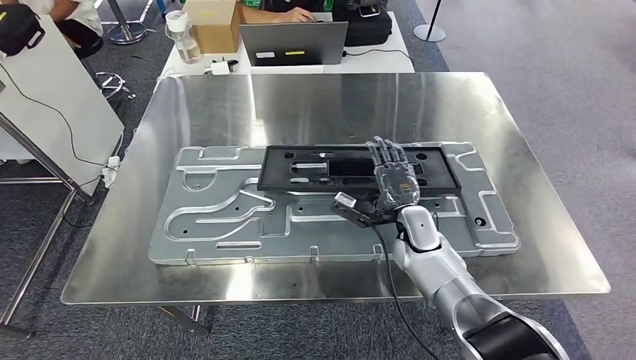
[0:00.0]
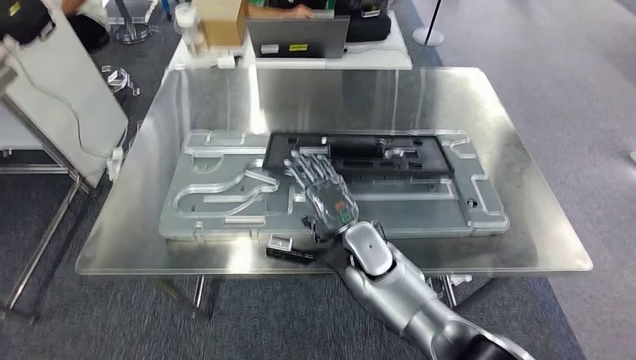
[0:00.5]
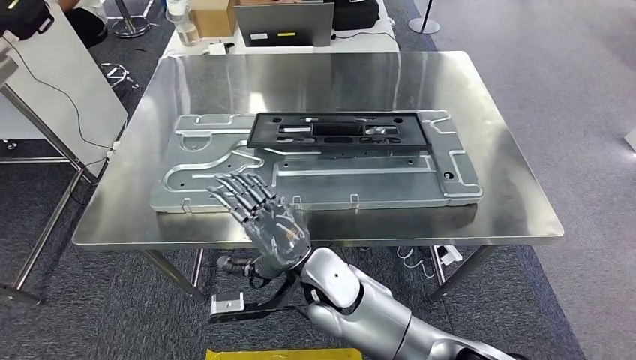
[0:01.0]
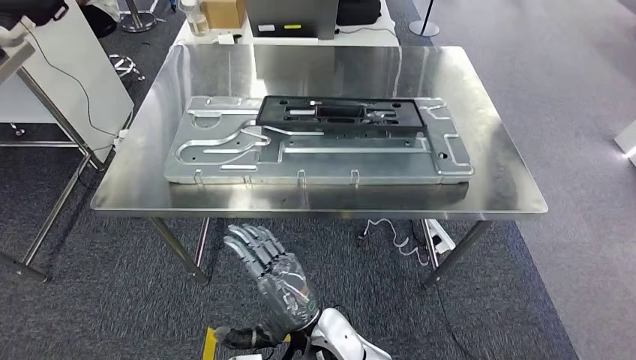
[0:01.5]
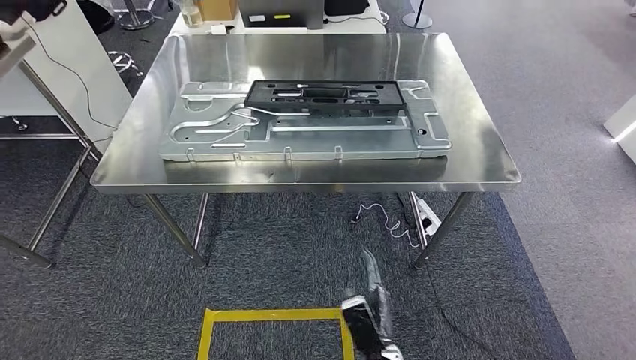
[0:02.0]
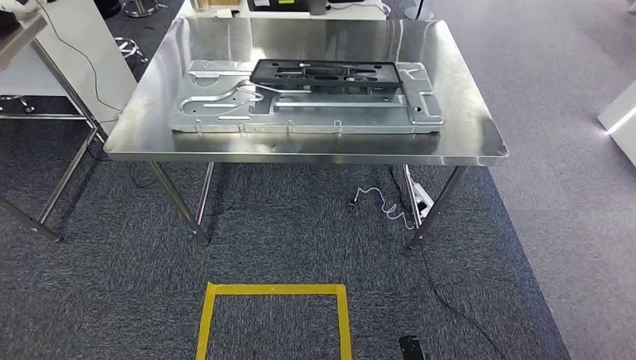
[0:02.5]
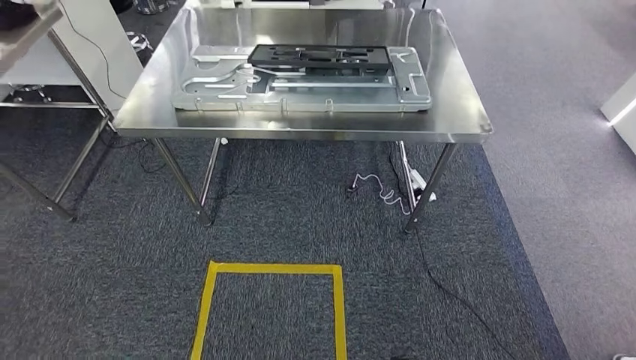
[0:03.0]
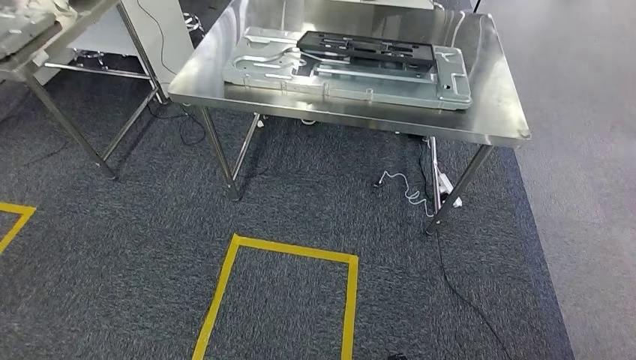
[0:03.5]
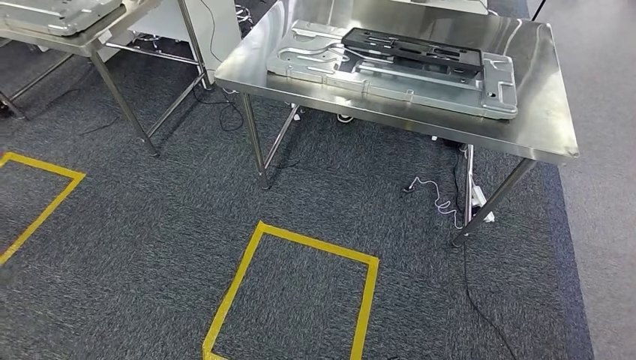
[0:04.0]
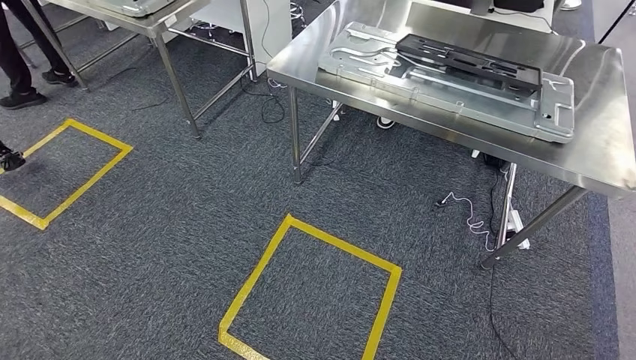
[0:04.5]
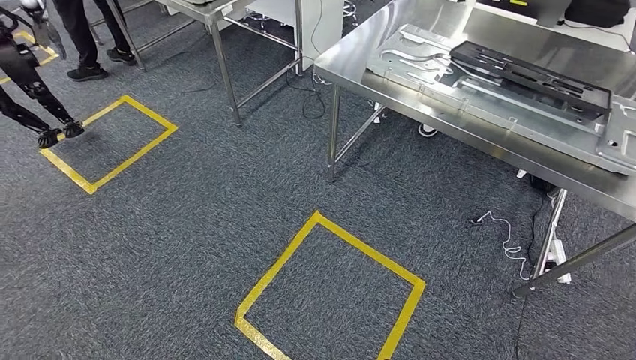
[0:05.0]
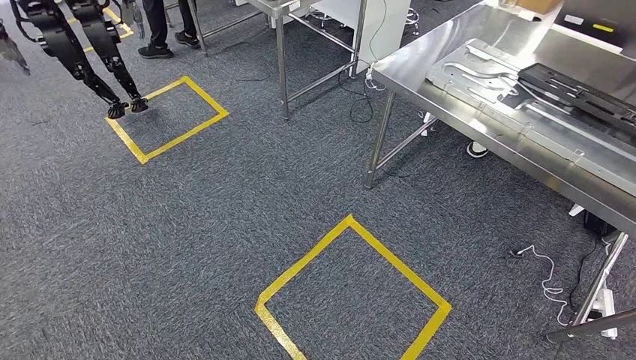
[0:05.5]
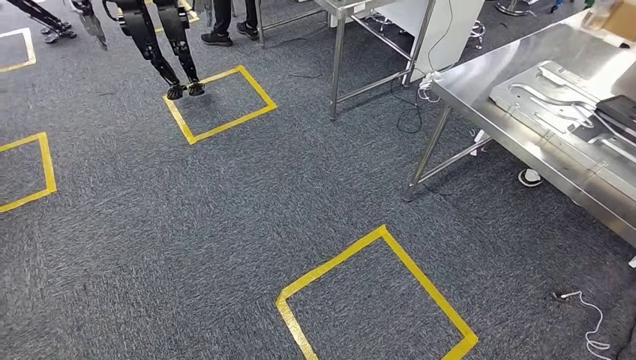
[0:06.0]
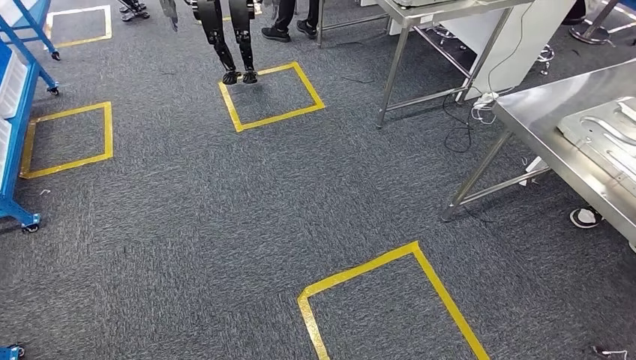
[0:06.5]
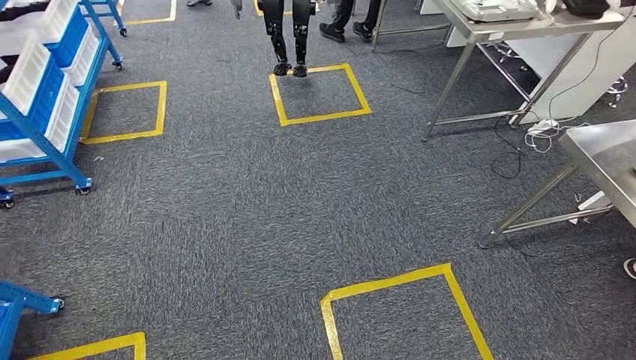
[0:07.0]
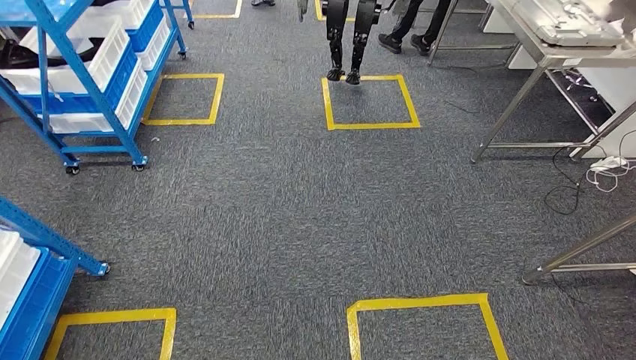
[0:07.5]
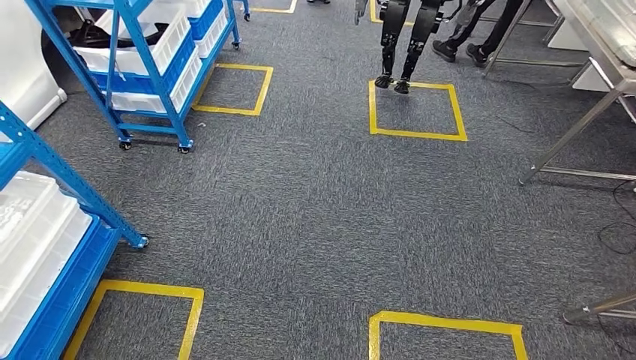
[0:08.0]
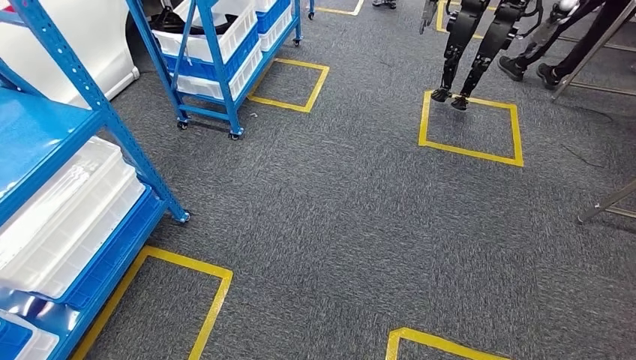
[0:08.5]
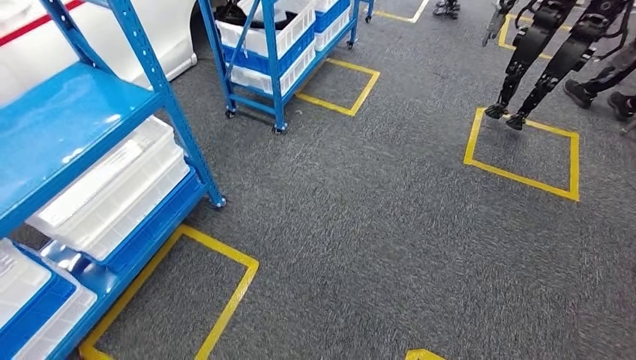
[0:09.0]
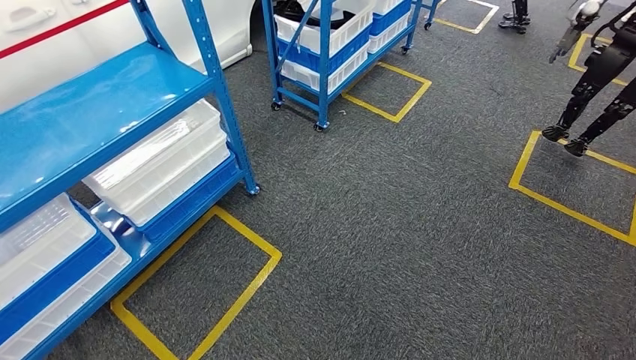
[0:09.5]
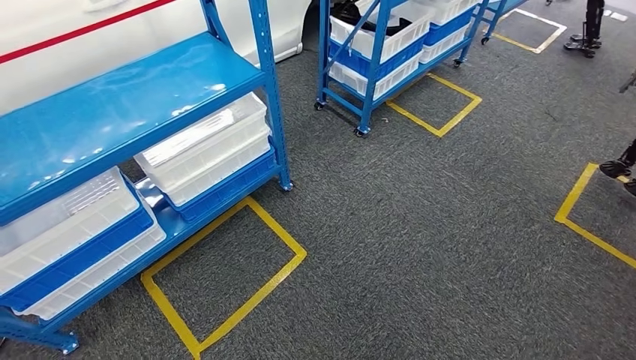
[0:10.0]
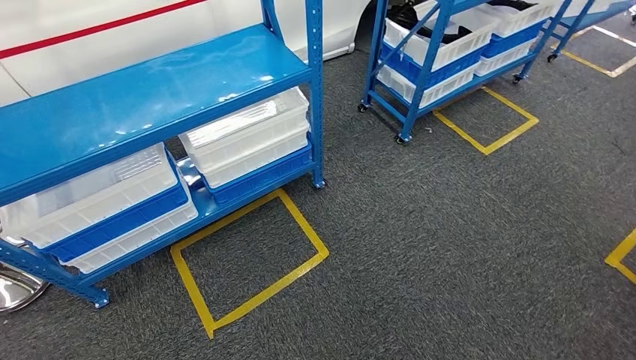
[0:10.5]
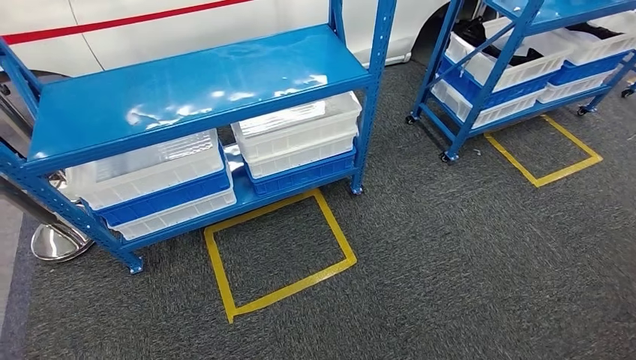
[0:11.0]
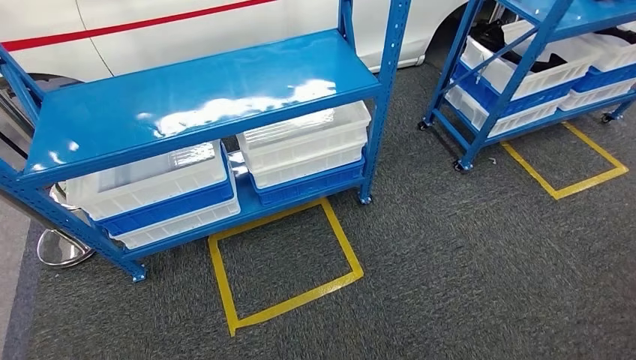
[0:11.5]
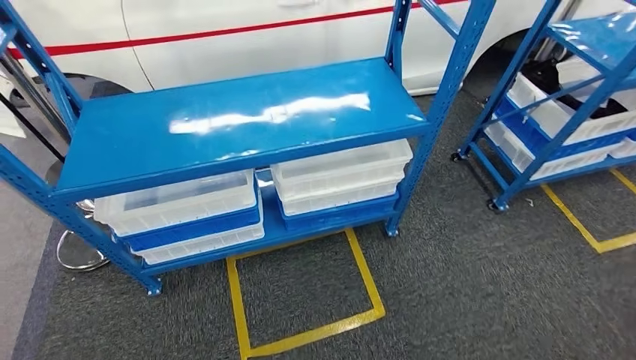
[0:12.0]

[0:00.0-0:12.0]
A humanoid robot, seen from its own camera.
Step, 0:00.0 to 0:03.0: Insert the large material into the corresponding slot on the workbench.

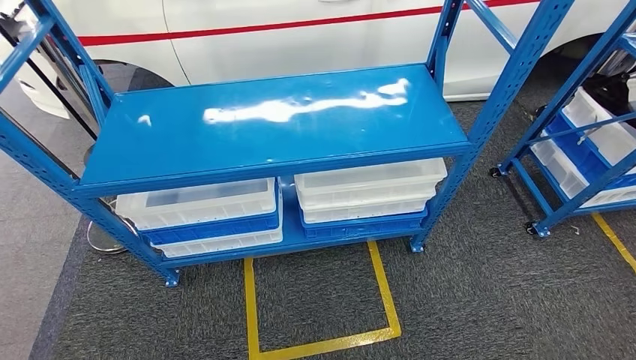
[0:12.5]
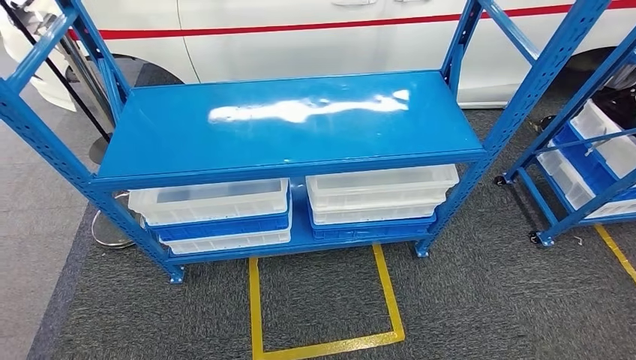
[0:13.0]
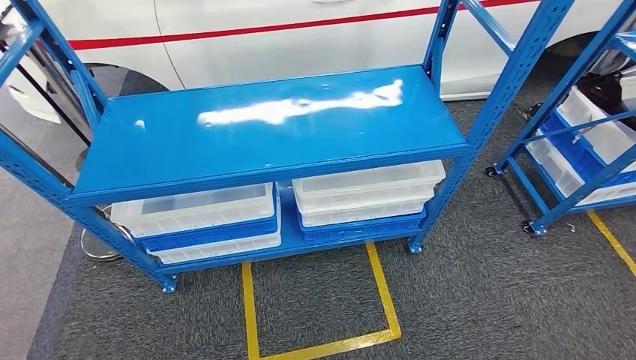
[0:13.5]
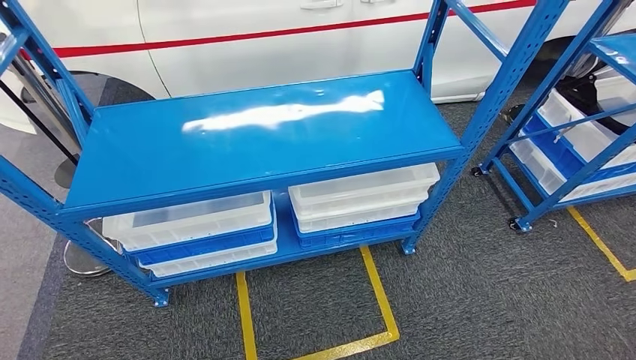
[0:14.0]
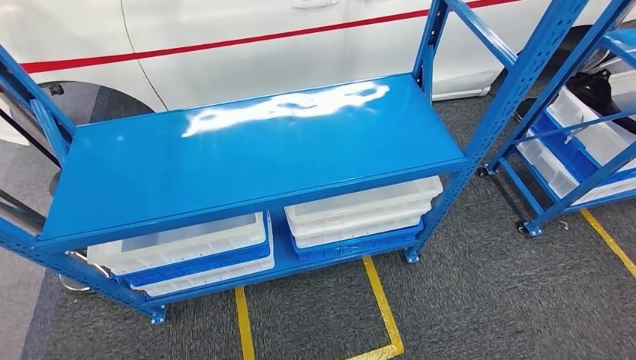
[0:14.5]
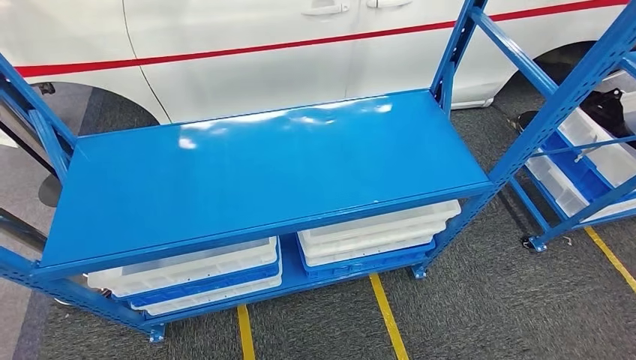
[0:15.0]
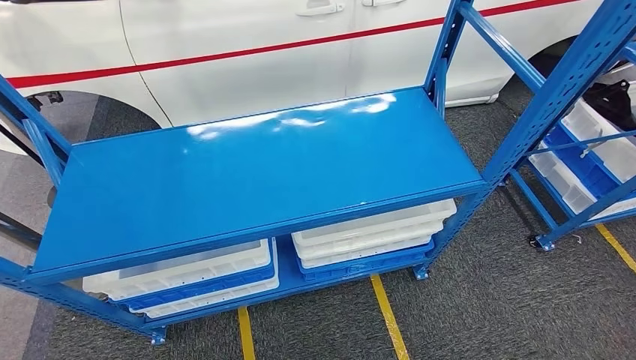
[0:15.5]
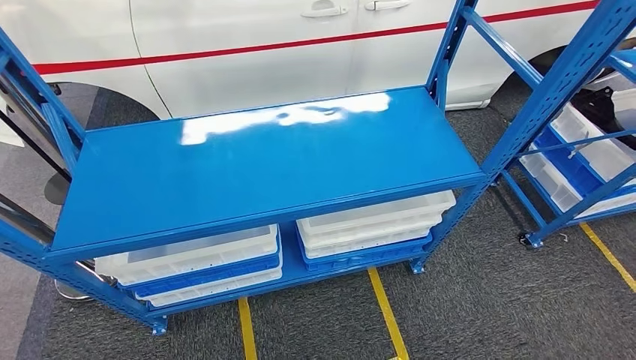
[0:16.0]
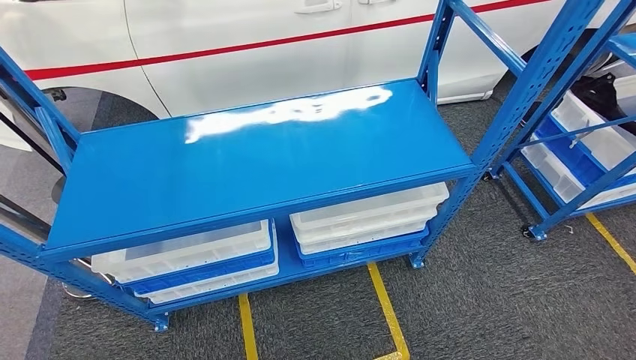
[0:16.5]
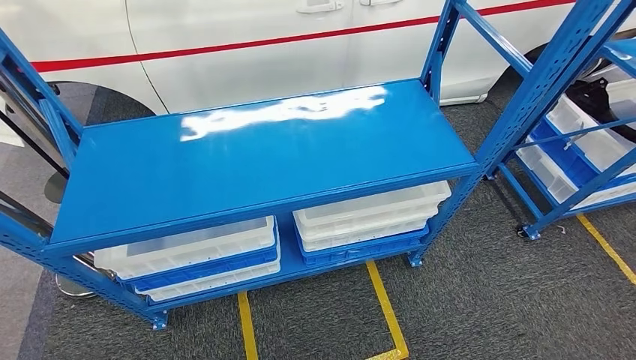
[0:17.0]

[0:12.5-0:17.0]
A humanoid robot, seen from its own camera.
Step, 0:12.5 to 0:17.0: Move to the initial position of the shelf.
